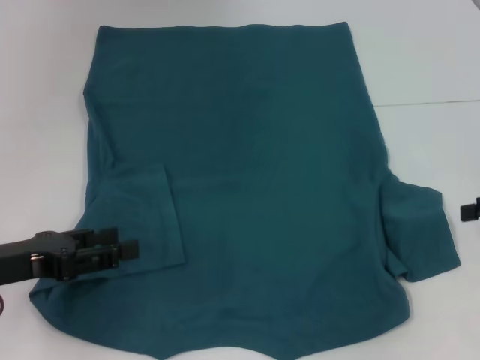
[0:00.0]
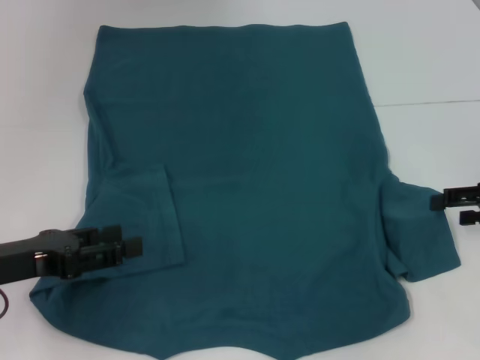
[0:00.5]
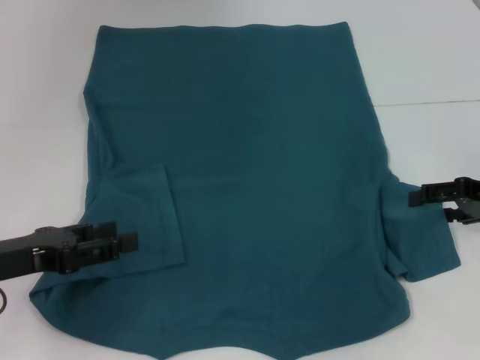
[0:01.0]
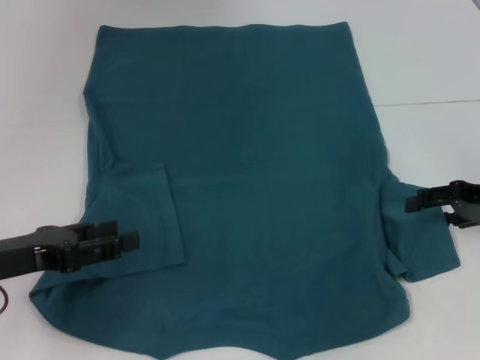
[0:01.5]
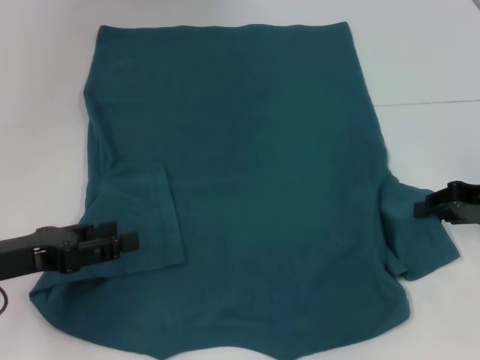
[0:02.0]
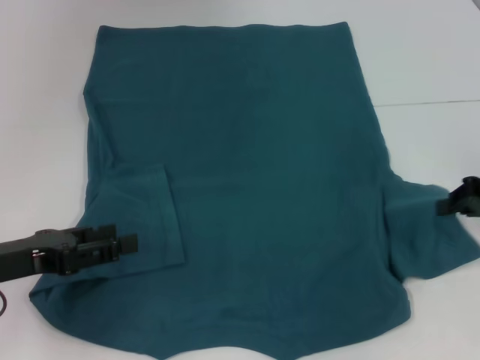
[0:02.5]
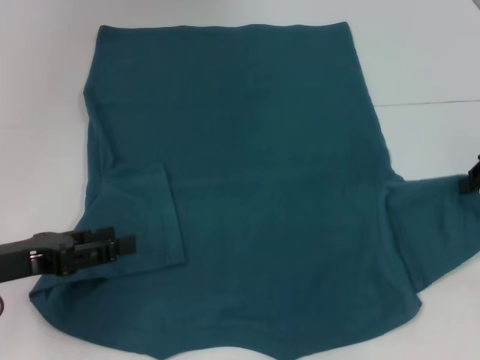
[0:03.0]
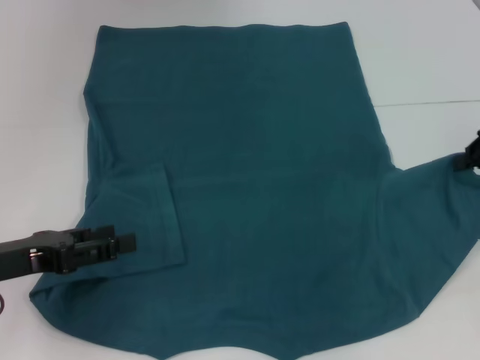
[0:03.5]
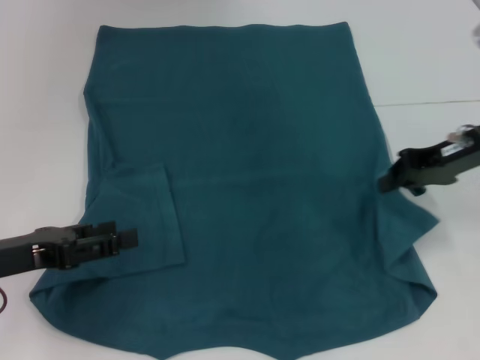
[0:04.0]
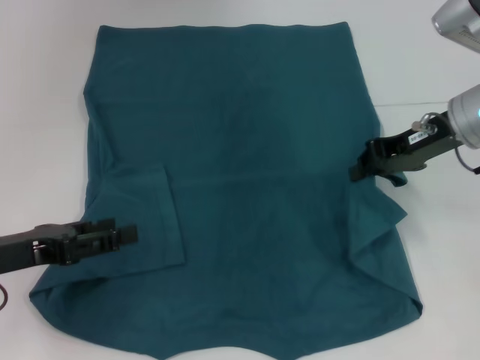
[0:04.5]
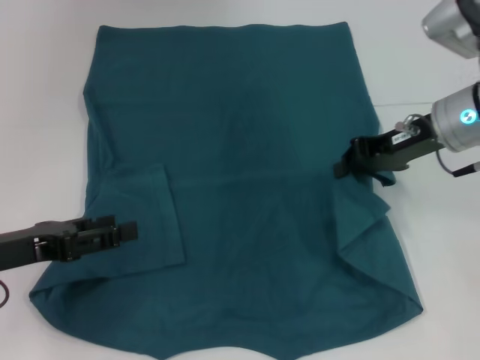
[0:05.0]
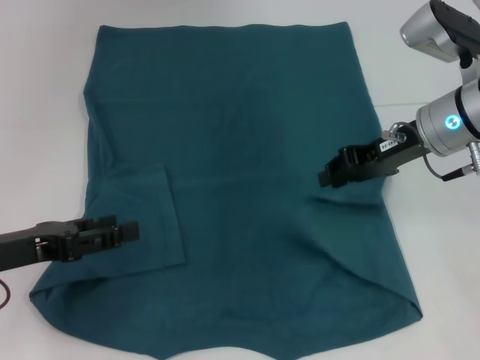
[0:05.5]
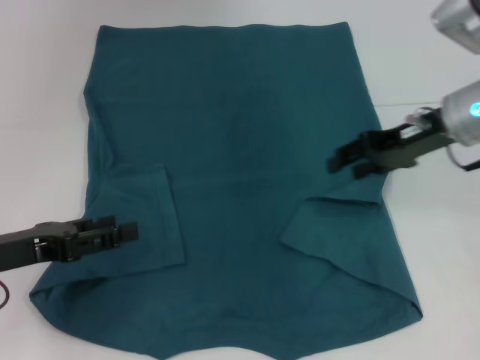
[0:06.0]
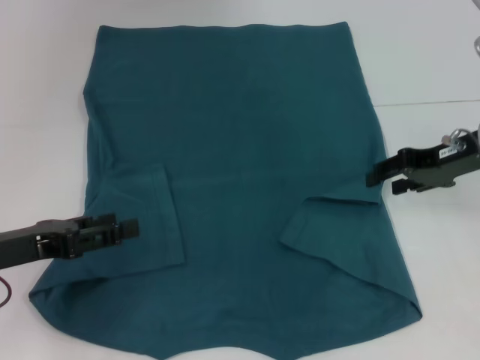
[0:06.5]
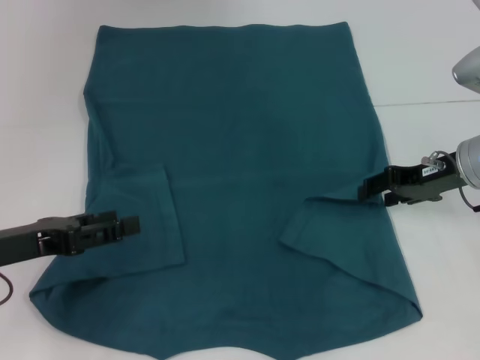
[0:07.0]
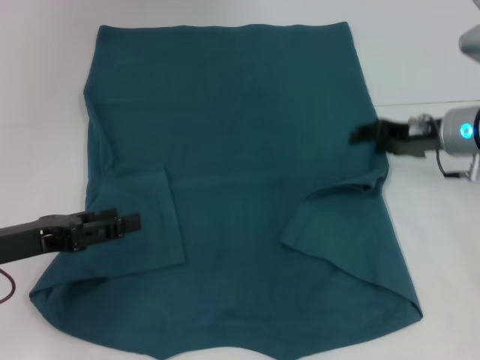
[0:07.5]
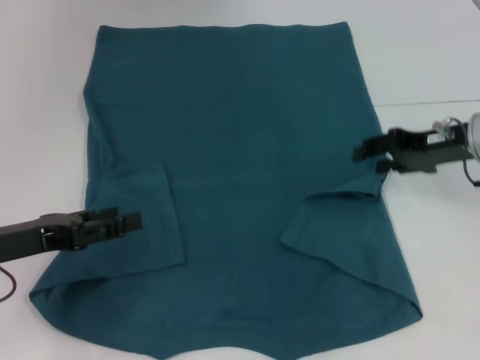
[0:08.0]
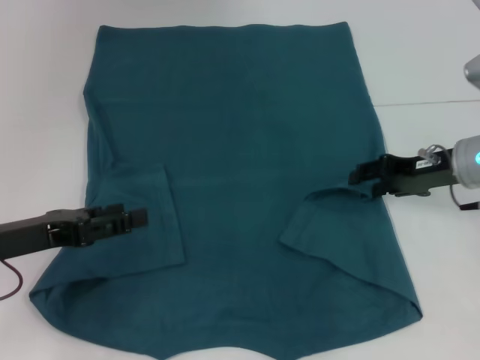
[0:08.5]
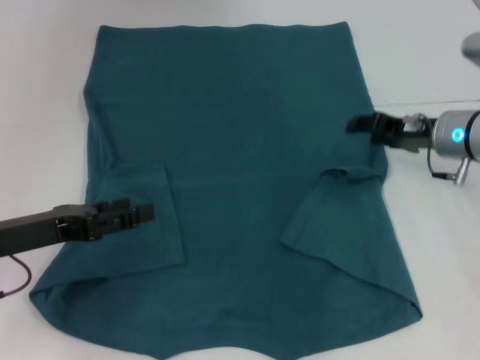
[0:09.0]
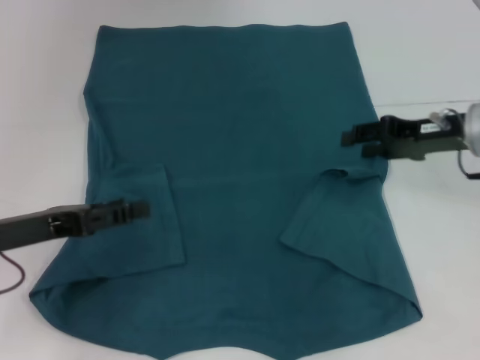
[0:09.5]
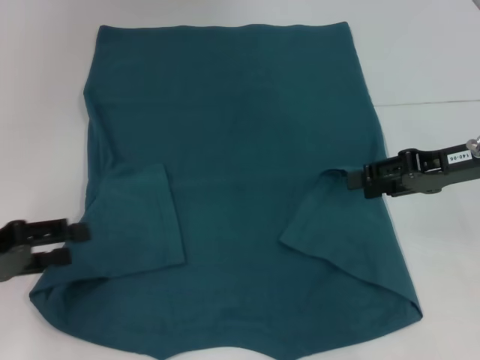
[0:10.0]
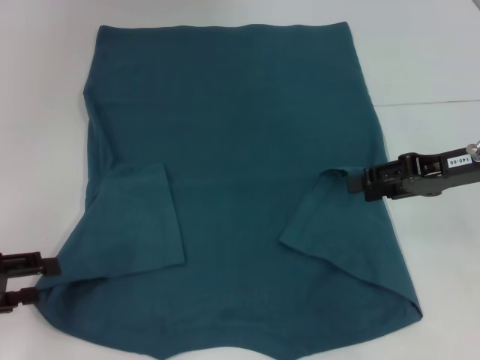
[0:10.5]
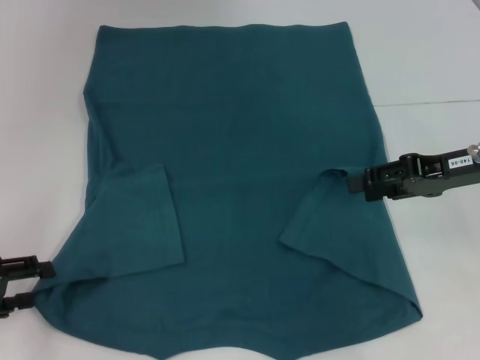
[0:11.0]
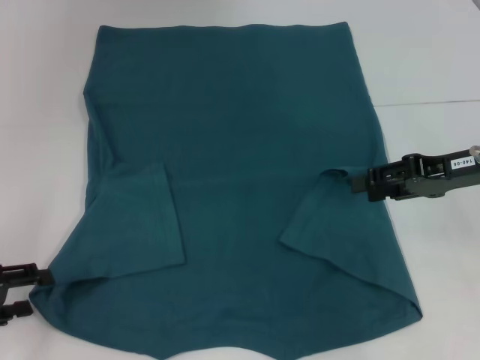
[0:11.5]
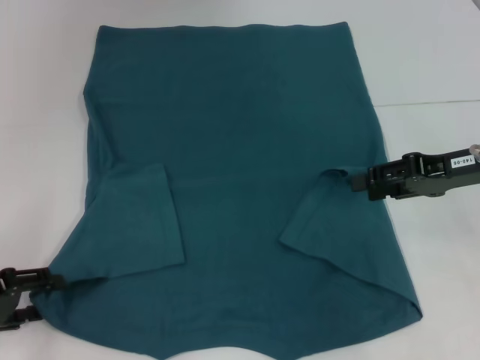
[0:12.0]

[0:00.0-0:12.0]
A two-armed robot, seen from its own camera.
Step, 0:00.0 to 0:08.5: Fold the bottom right sleeve to the right.
0:00.0 to 0:02.0: The right gripper ends up approximately 5 cm from where it was, and closes up.
0:02.0 to 0:04.0: The right gripper shifts roughly 10 cm to the left and upward, and closes its fingers.
0:04.0 to 0:06.0: The right gripper opens its fingers.
0:06.0 to 0:08.0: The right gripper changes place by some 5 cm.
0:10.0 to 0:12.0: The left gripper goes about 5 cm downward.

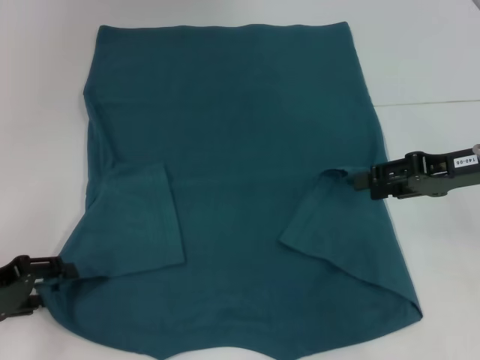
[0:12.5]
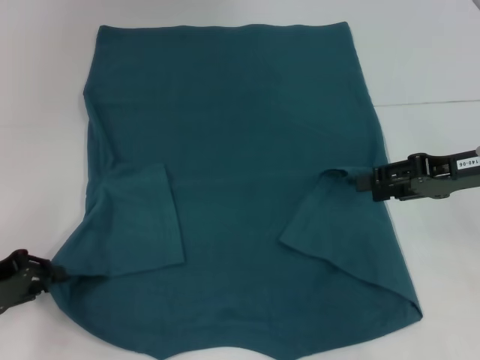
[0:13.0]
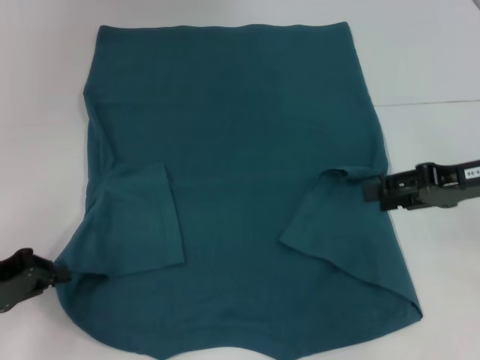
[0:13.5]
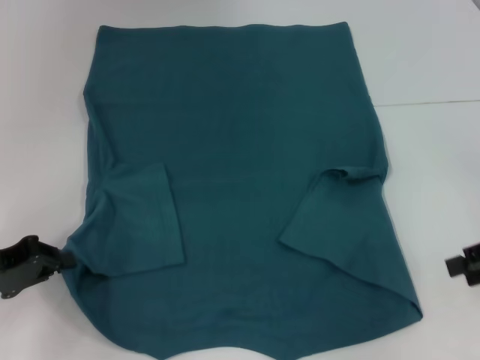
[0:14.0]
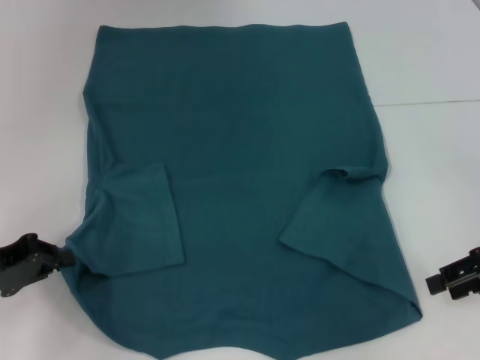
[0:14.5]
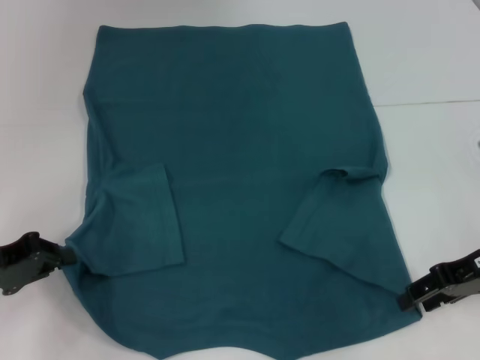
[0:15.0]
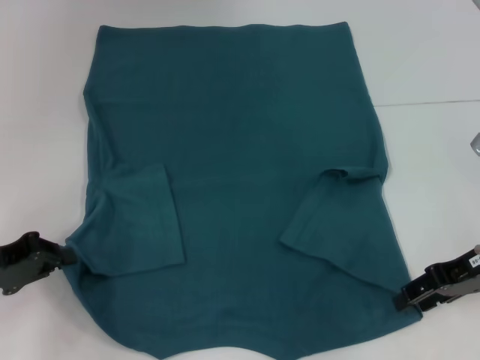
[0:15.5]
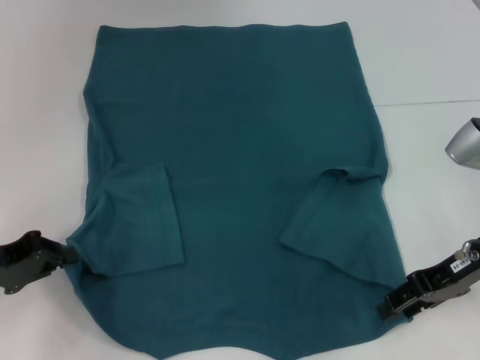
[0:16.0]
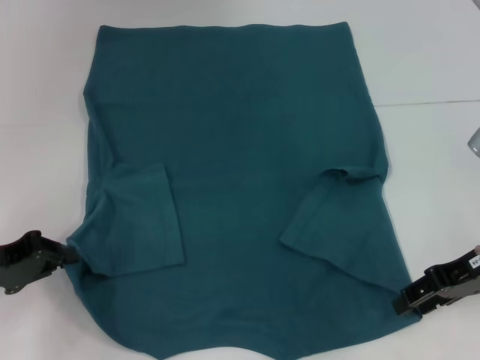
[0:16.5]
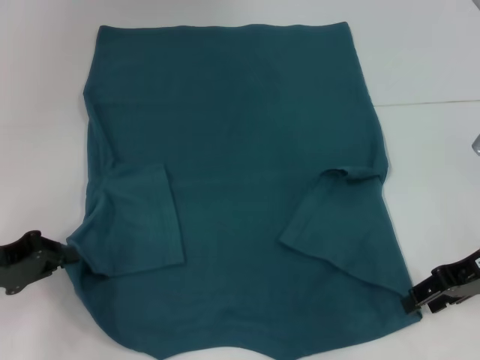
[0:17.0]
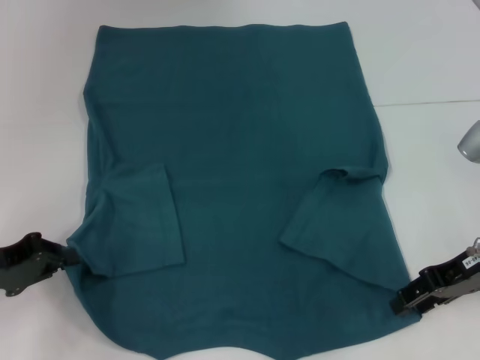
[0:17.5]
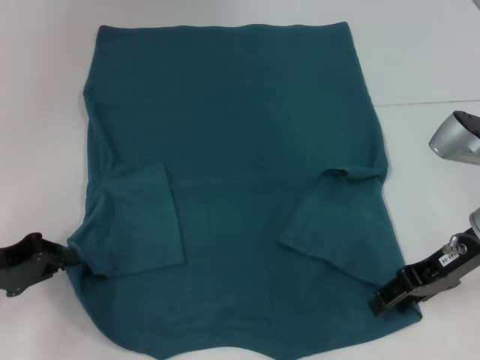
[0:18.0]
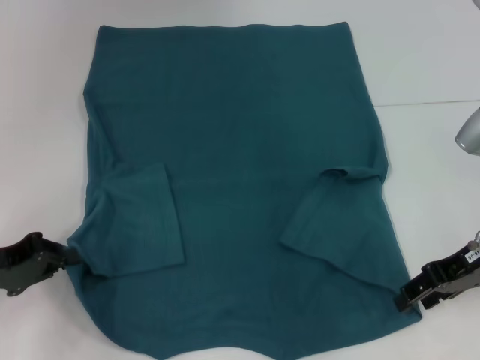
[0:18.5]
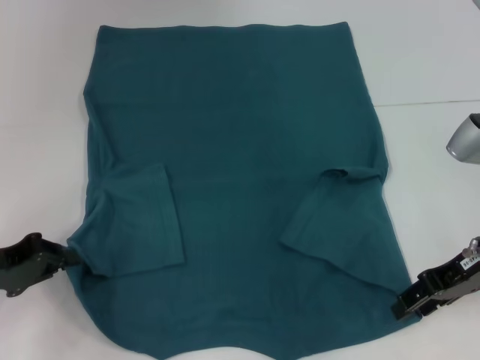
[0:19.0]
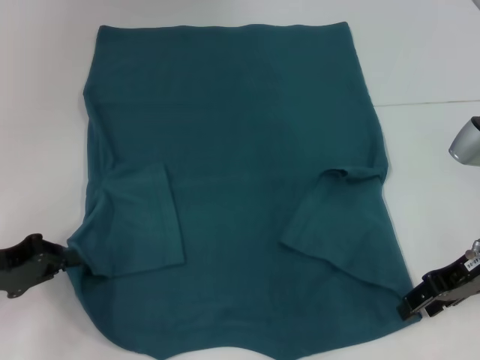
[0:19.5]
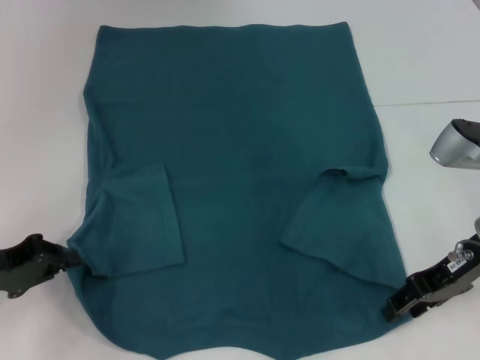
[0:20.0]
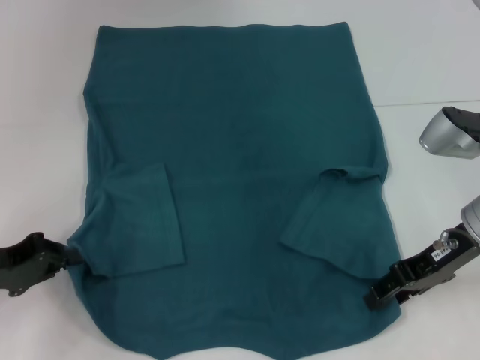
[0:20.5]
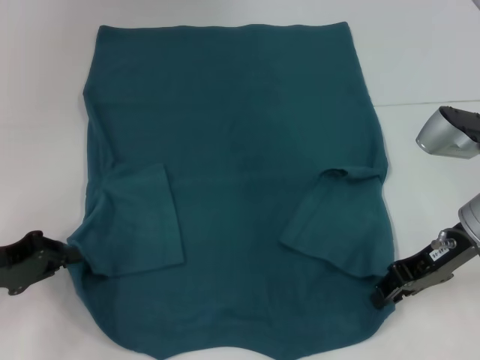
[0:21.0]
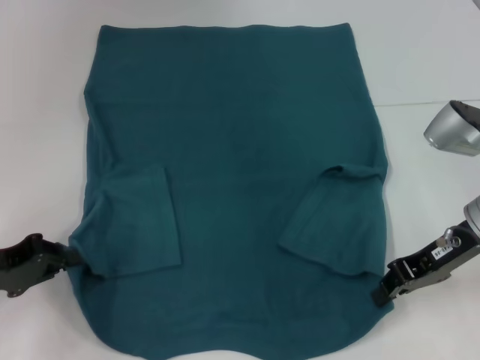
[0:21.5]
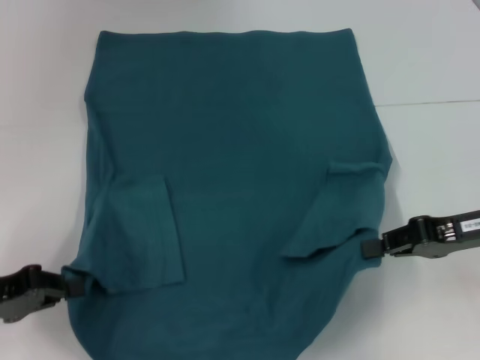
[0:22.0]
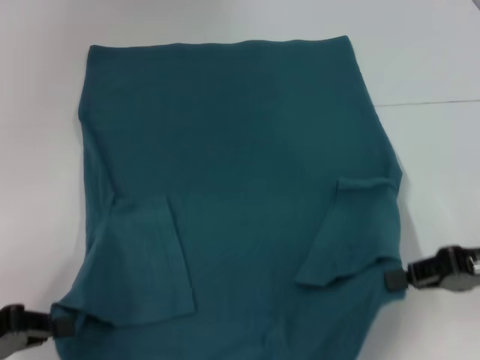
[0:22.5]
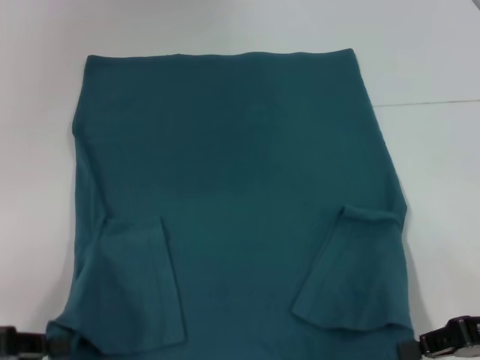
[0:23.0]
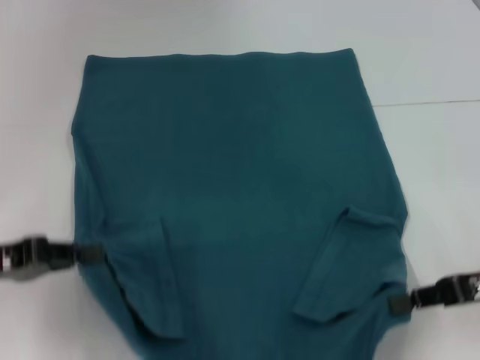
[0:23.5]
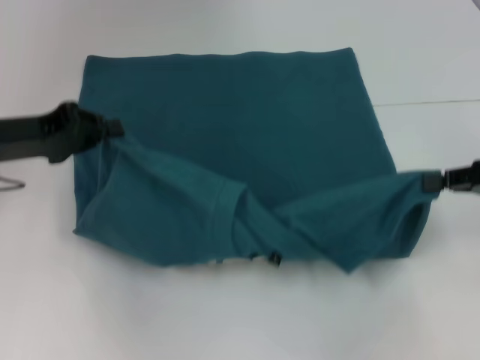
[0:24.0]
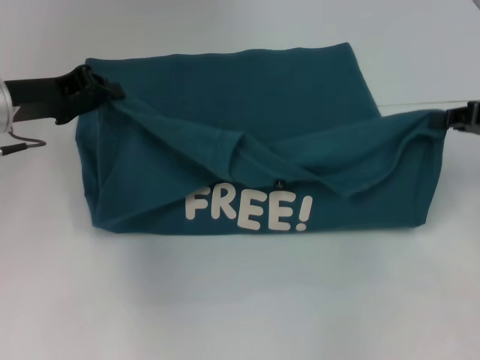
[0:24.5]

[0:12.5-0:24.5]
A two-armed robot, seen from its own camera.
Step, 0:13.5 to 0:21.0: Grab the bottom right corner with your right hand.
0:12.5 to 0:14.5: The left gripper closes its fingers, while the right gripper shifts by some 5 cm.
0:14.5 to 0:16.5: The right gripper is displaced to the left by about 5 cm.
0:16.5 to 0:20.5: The grippers stay close to where they were, moving slightly.
0:20.5 to 0:22.5: The right gripper moves backward and to the right, roughly 10 cm, and closes. Meanwhile the left gripper moves backward, some 5 cm.
0:22.5 to 0:24.5: The left gripper travels forward, upward and to the right by about 20 cm. Meanwhile the right gripper heads forward, covering some 10 cm.

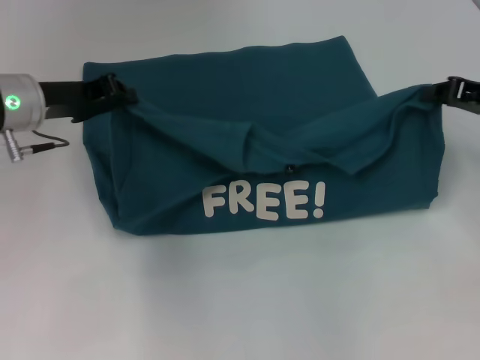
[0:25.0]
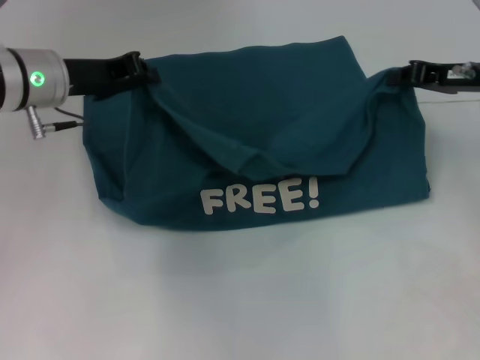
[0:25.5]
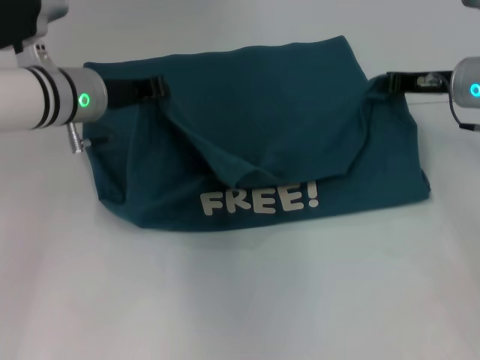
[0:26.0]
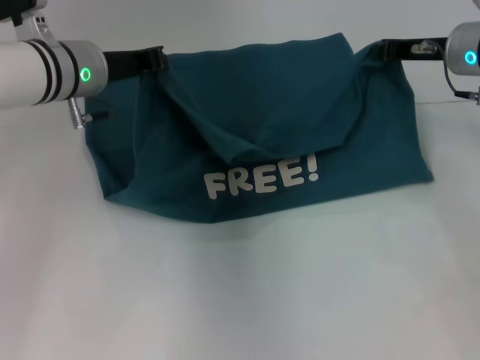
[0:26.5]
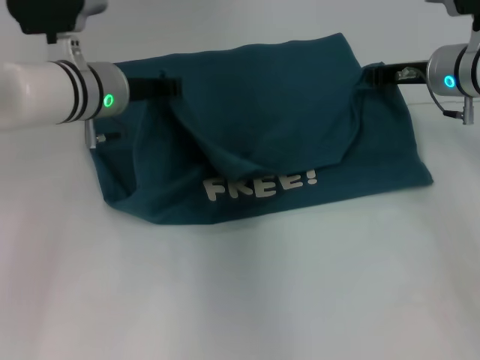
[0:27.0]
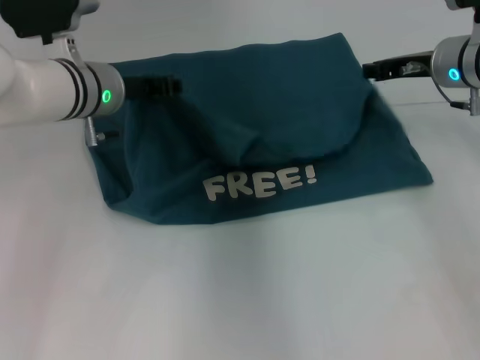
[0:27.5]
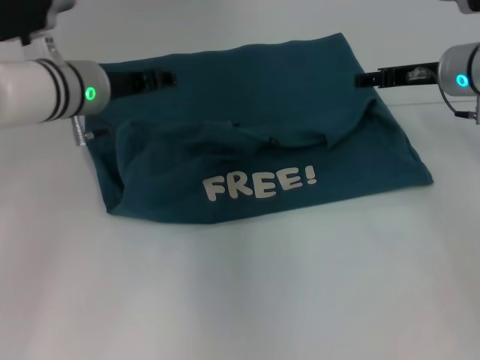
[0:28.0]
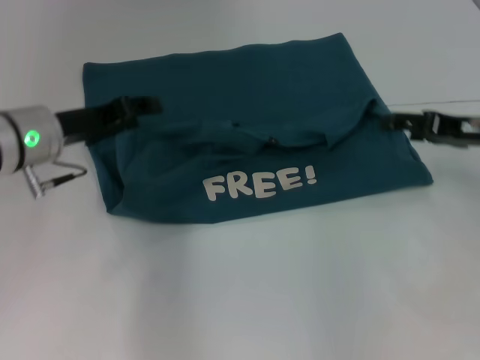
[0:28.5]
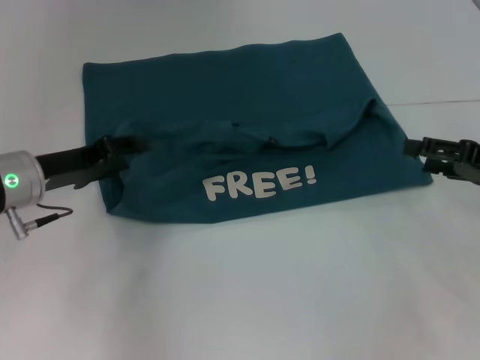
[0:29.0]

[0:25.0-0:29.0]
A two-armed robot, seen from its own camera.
Step, 0:25.0 to 0:27.5: Fold the clothes to the left.
Step, 0:25.0 to 0:27.5: Fold the clothes to the right.
0:25.0 to 0:27.0: The left gripper is displaced to the right by some 10 cm. The right gripper is displaced to the left and forward by approximately 10 cm.
0:27.0 to 0:29.0: The left gripper heads to the left and backward, covering roughly 10 cm, and opens up; the right gripper heads backward and to the right, covering about 15 cm, and opens its fingers.
